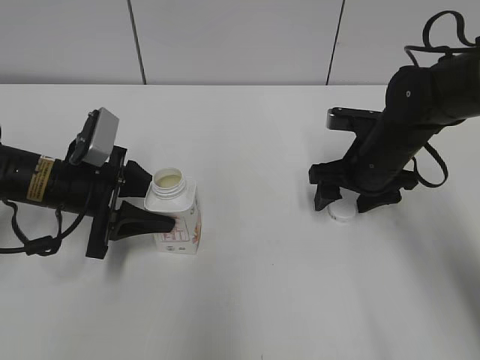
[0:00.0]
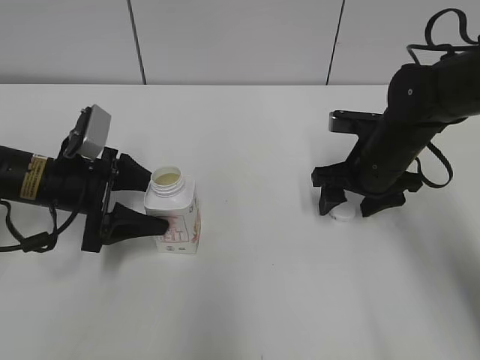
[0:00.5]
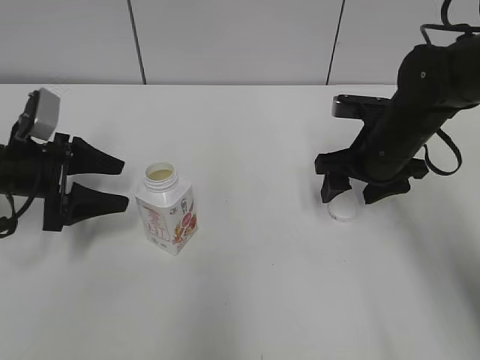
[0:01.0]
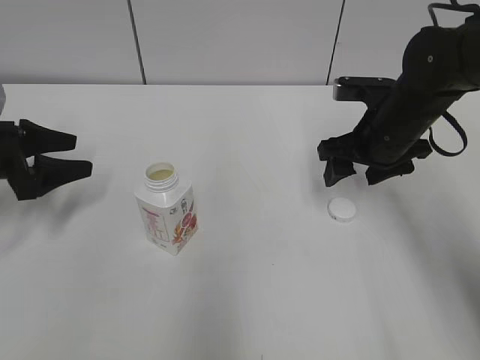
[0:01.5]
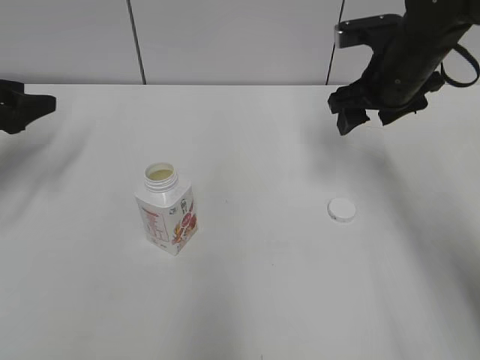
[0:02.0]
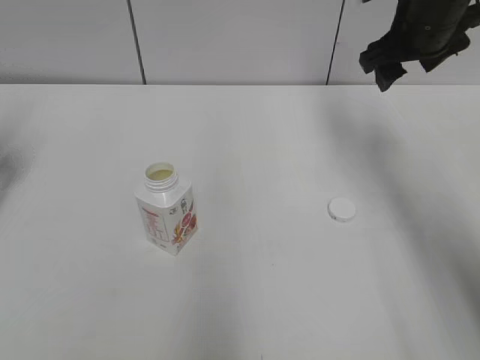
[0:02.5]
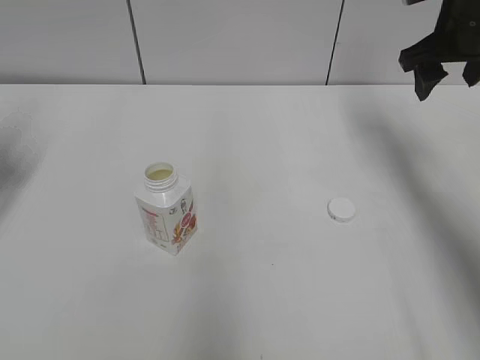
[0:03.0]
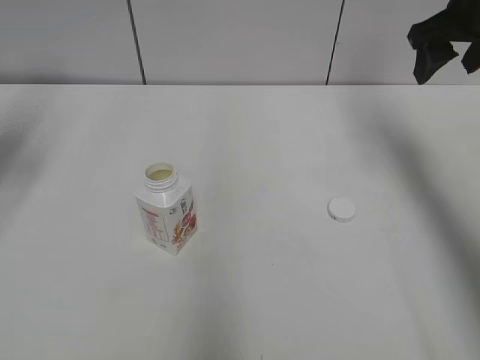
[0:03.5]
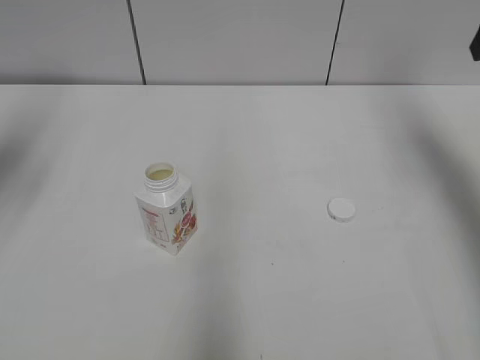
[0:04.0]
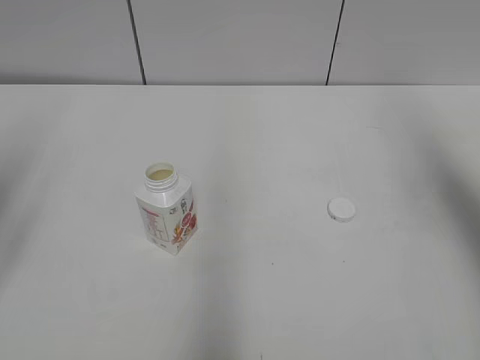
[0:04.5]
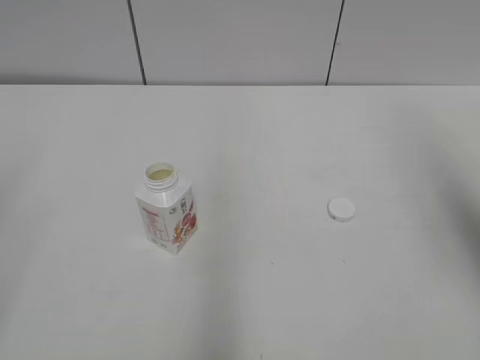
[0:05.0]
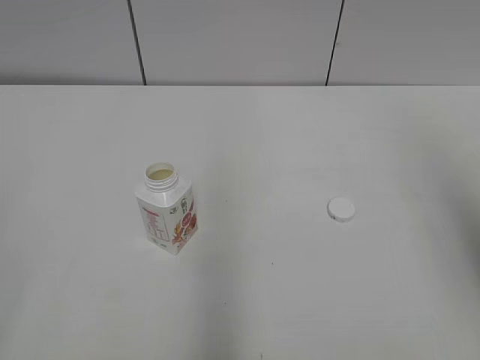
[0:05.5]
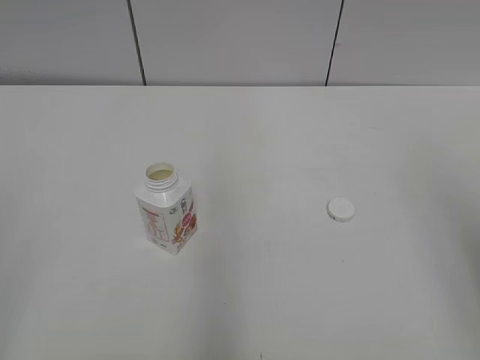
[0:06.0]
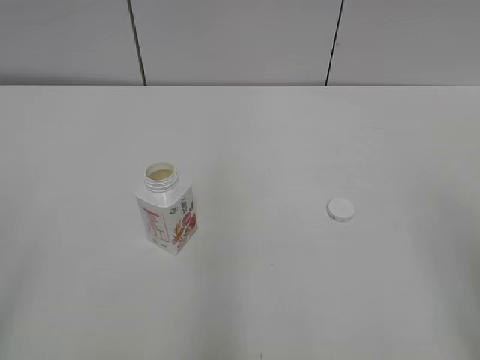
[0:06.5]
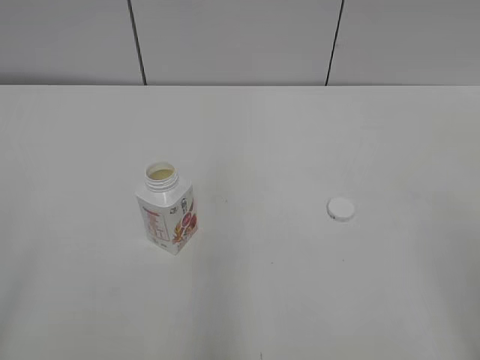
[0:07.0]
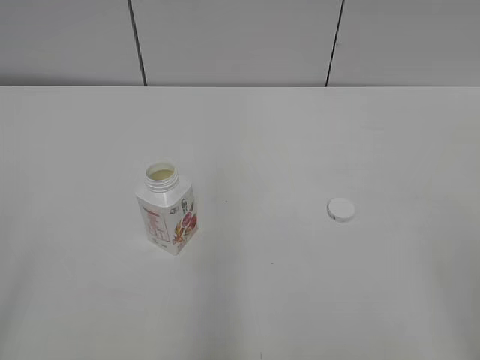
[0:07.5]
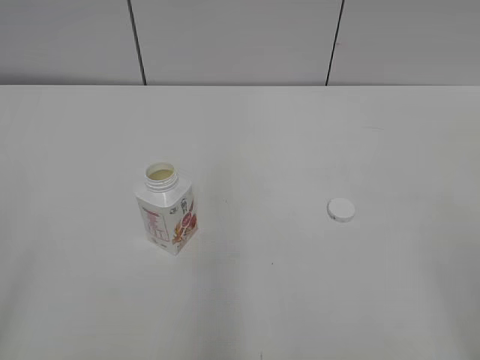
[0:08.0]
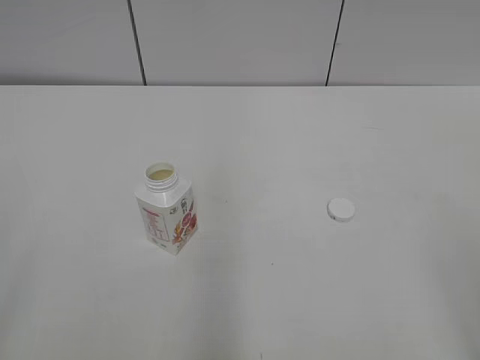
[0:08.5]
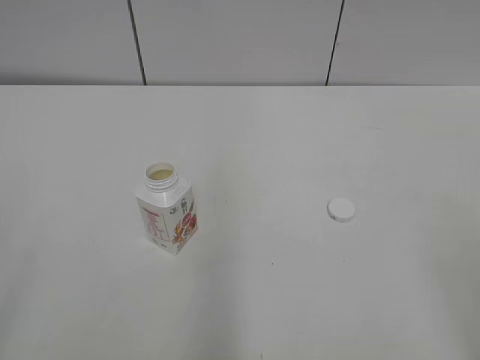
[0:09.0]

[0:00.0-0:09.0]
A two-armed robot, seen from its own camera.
0:00.0 to 0:02.0: The left gripper travels to the left and upward by roughly 15 cm, and opens up; the right gripper heads upward, covering approximately 10 cm.
0:02.0 to 0:04.5: The right gripper heads upward, backward and to the right, covering approximately 25 cm. The left gripper heads backward and upward, covering approximately 20 cm.
0:04.5 to 0:07.0: The right gripper is displaced backward by some 25 cm.

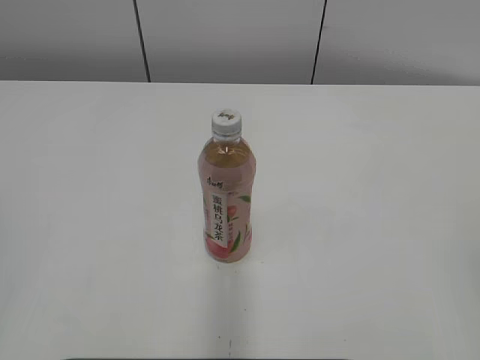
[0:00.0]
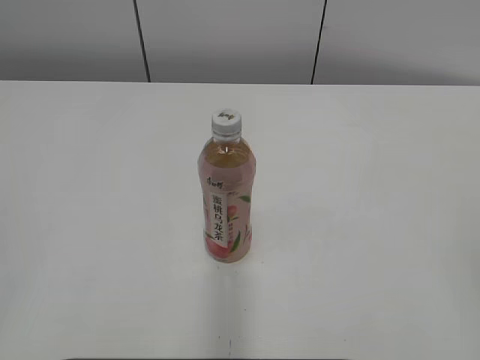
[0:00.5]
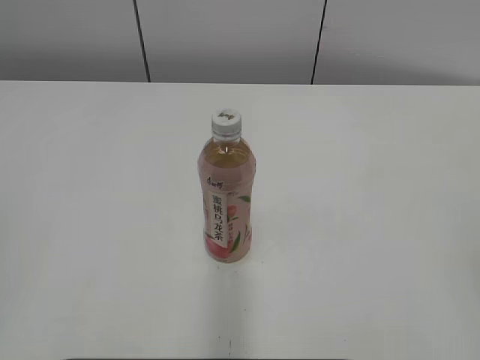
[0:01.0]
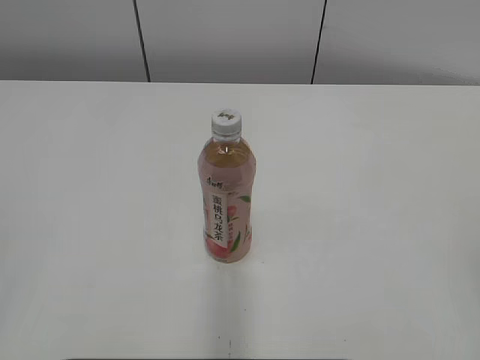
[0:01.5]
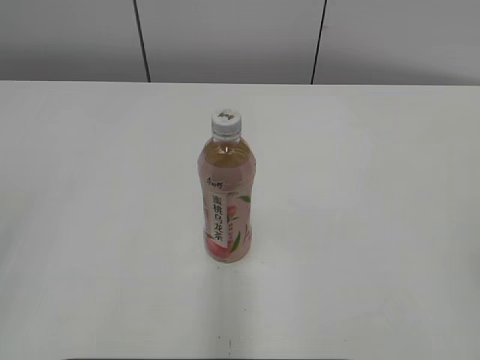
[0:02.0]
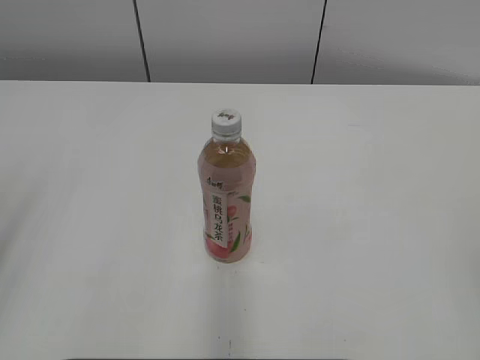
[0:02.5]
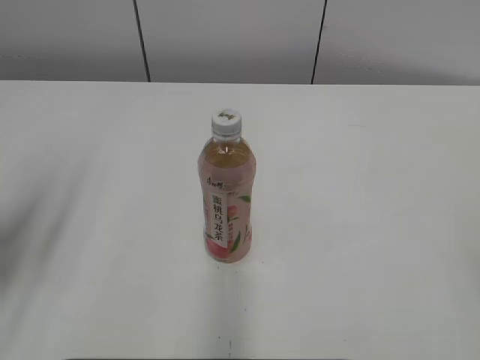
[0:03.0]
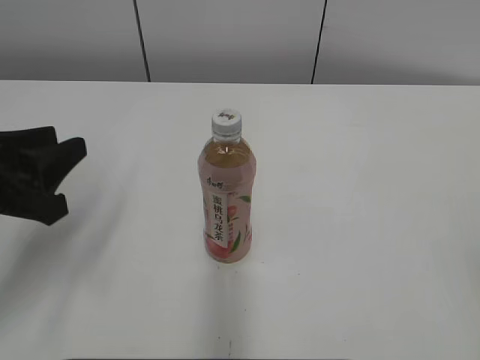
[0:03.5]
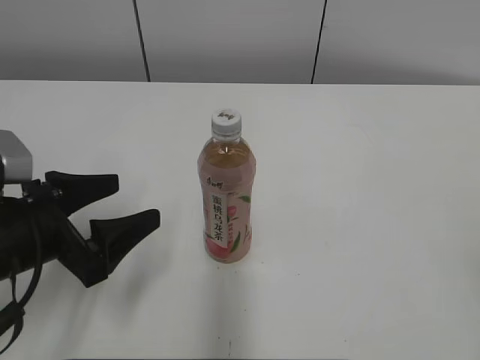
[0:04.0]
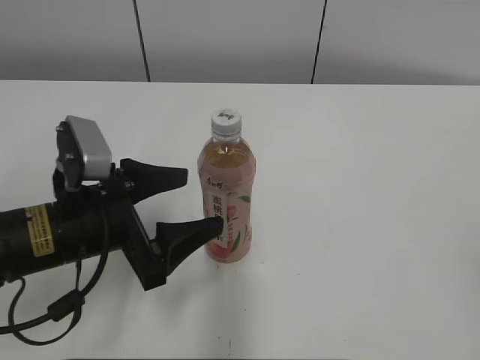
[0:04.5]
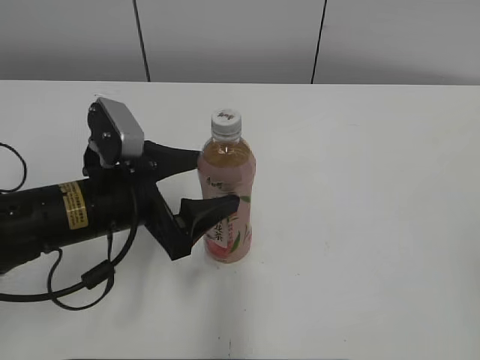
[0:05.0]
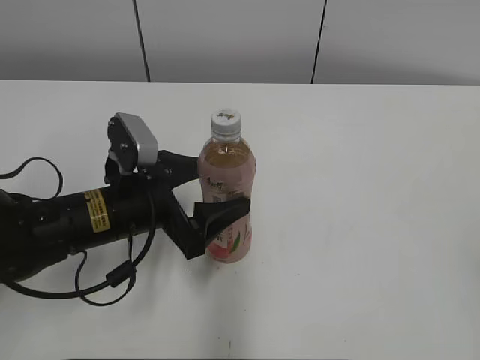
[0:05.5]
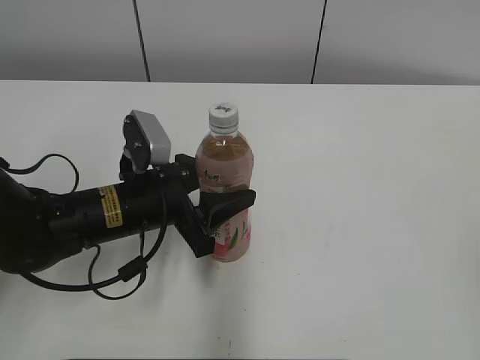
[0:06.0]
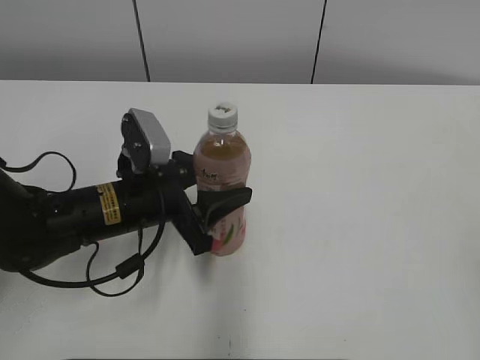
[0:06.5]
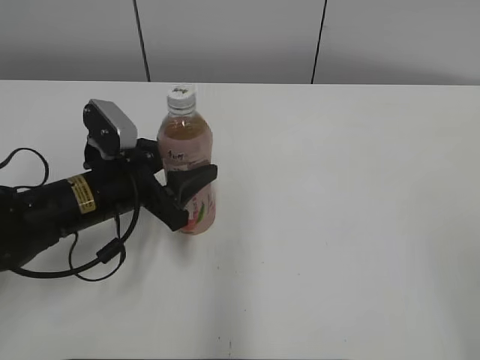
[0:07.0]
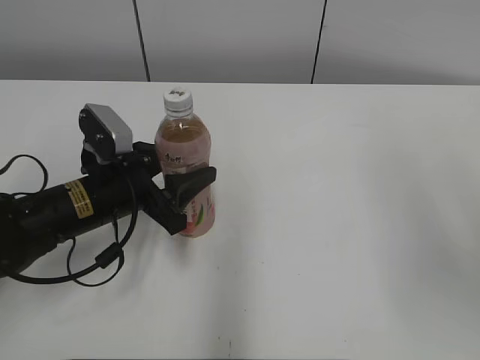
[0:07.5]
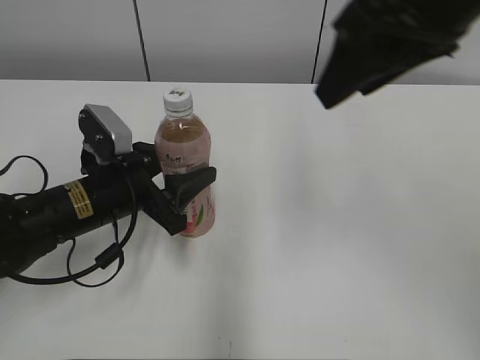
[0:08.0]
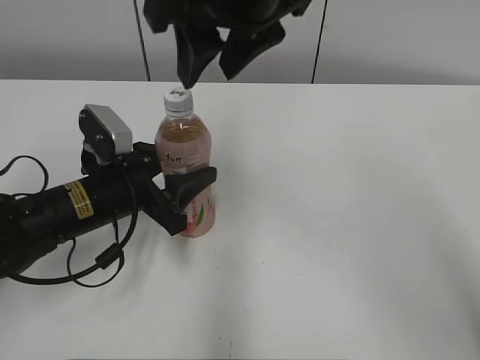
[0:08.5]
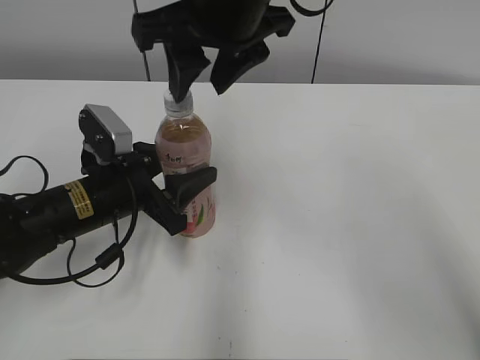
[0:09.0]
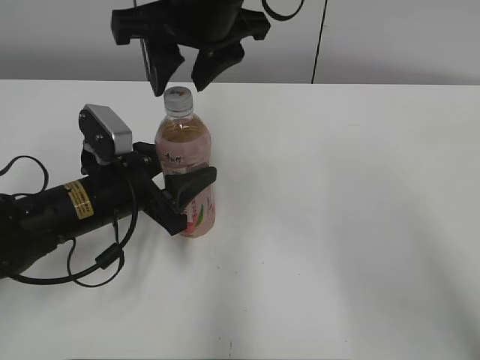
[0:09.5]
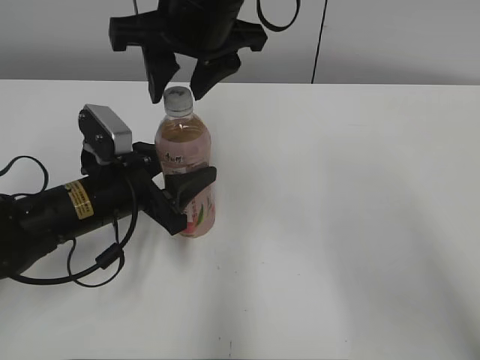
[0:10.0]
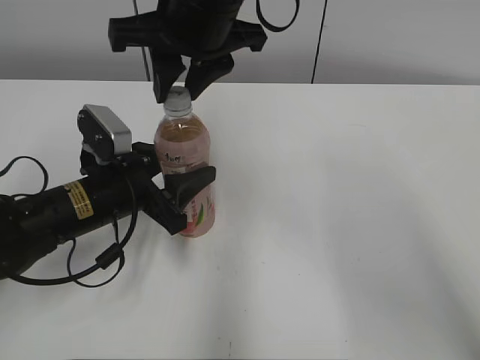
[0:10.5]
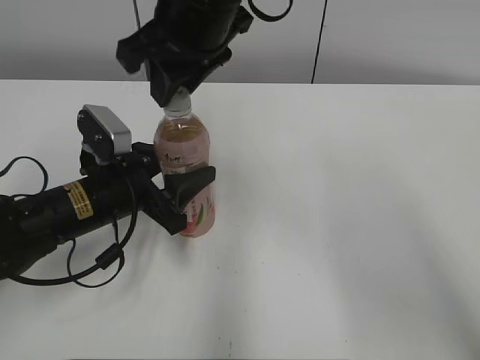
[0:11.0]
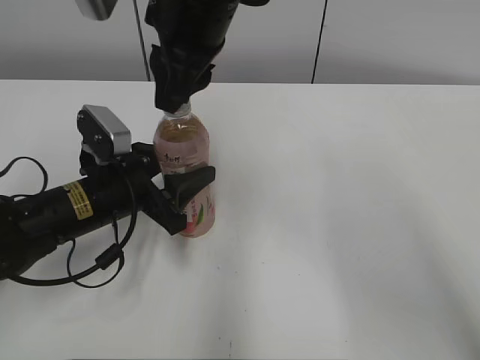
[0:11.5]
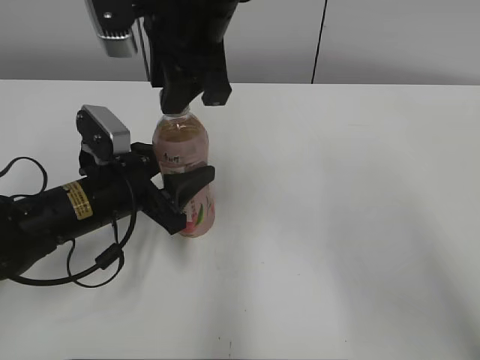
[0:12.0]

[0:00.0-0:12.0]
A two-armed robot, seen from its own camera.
Step, 0:00.0 to 0:06.0: Grab the Peach Oolong Tea with the left hand.
Step, 0:06.5 to 0:10.0: Move the Peach Oolong Tea from right to left.
0:02.0 to 0:04.0: The left gripper is displaced forward, downward and to the right by some 25 cm, and opens.
0:04.0 to 0:06.0: The left gripper shifts some 10 cm to the right and forward, and closes its fingers.
0:06.0 to 0:08.0: The right gripper is displaced forward and to the left by some 30 cm.
0:08.0 to 0:10.0: The right gripper shifts roughly 15 cm to the left and forward.
0:10.0 to 0:12.0: The right gripper closes up.

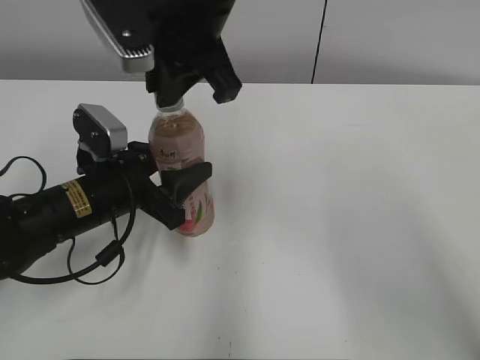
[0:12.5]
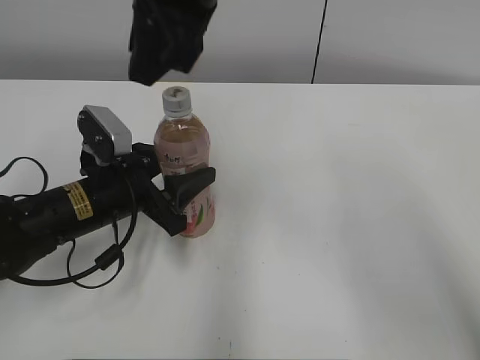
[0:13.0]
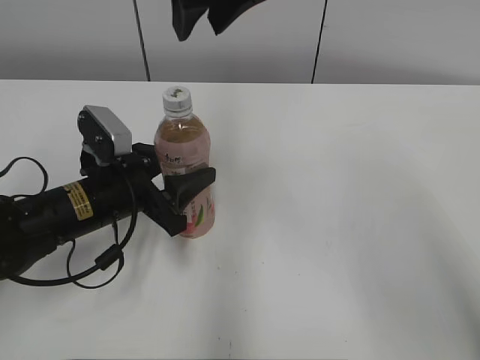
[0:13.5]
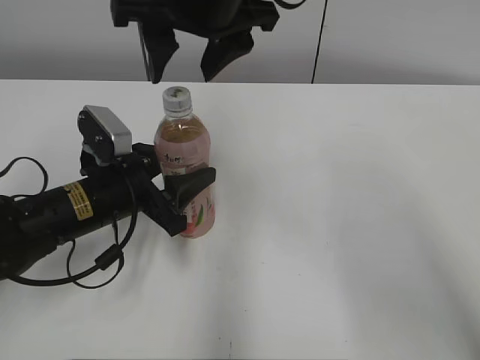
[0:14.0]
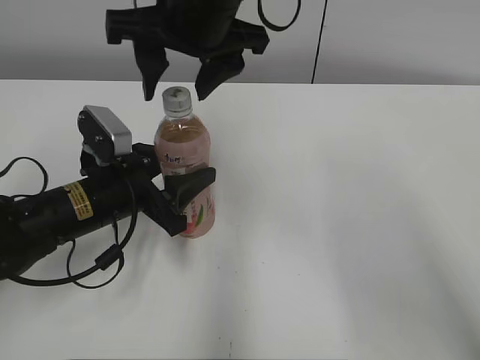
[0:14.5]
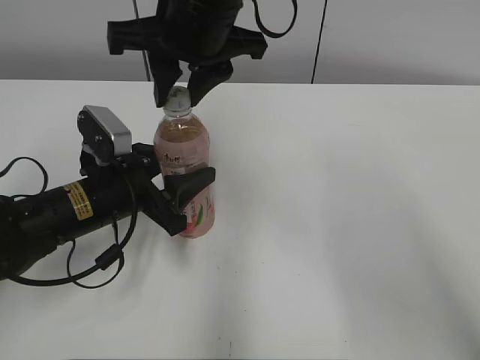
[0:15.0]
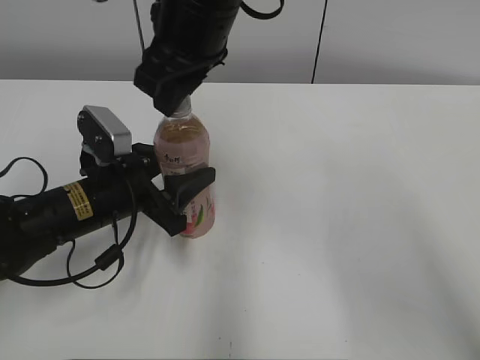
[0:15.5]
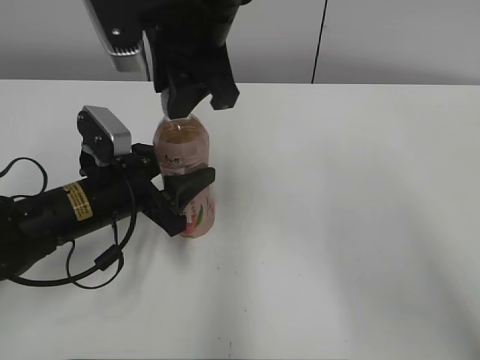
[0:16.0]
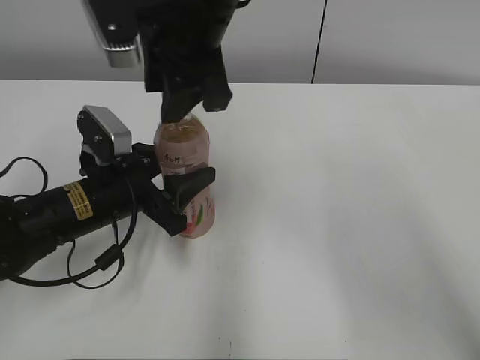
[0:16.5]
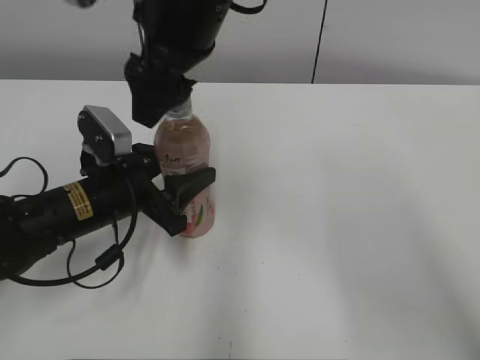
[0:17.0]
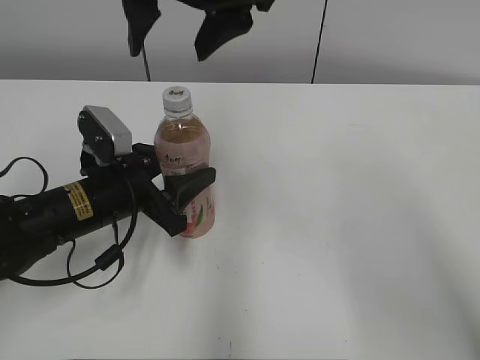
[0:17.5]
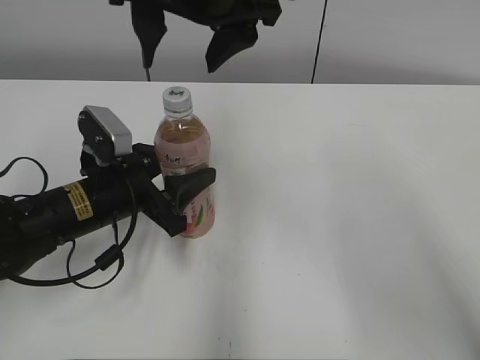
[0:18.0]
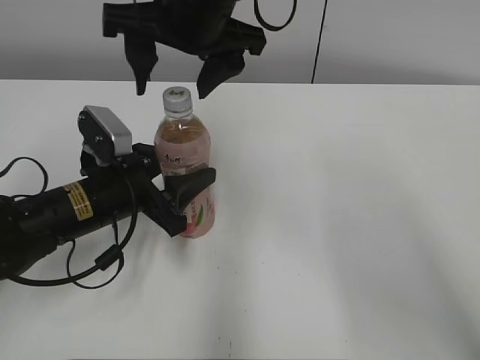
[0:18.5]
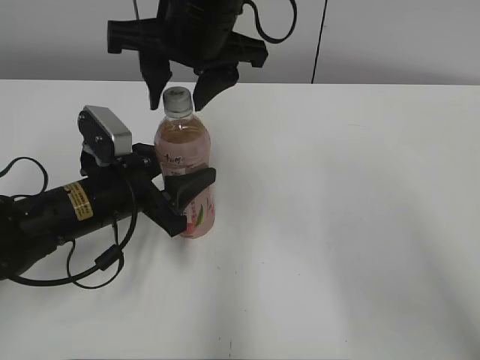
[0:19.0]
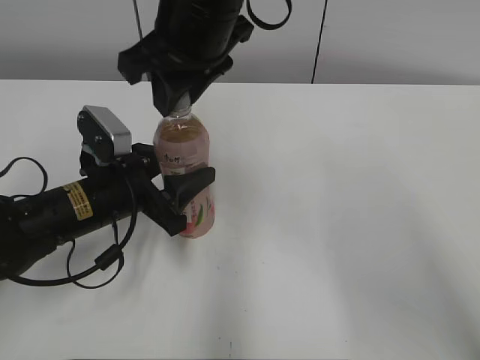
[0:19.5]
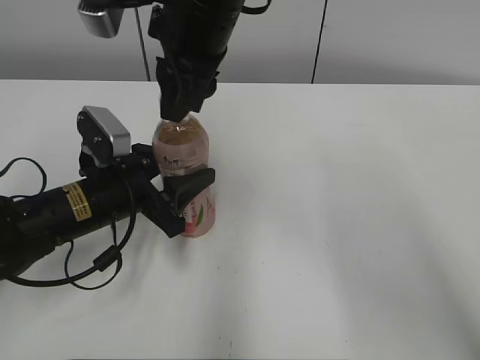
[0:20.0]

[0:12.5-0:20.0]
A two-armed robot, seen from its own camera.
0:12.5 to 0:14.5: The right gripper opens up.
0:14.5 to 0:16.5: The right gripper closes.
0:16.5 to 0:18.0: The right gripper opens its fingers.
0:18.0 to 0:20.0: The right gripper closes up.
